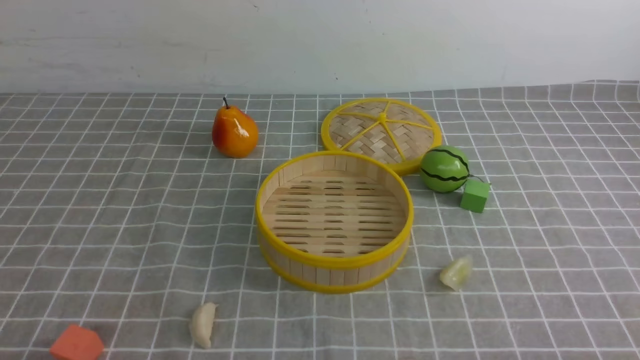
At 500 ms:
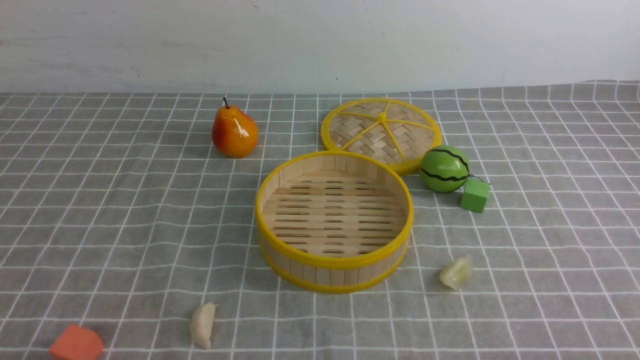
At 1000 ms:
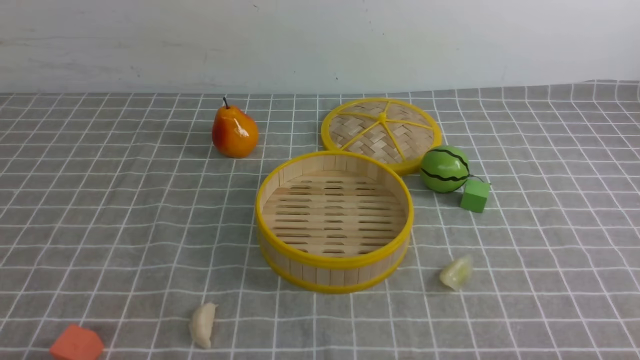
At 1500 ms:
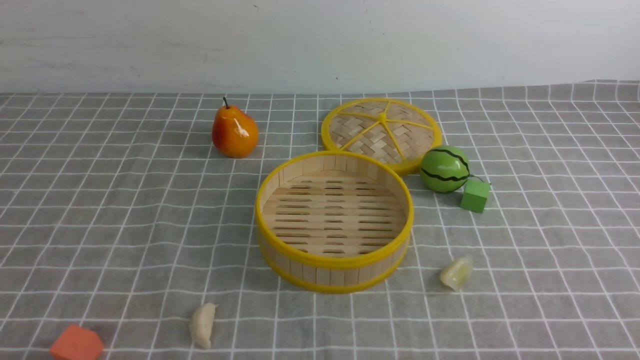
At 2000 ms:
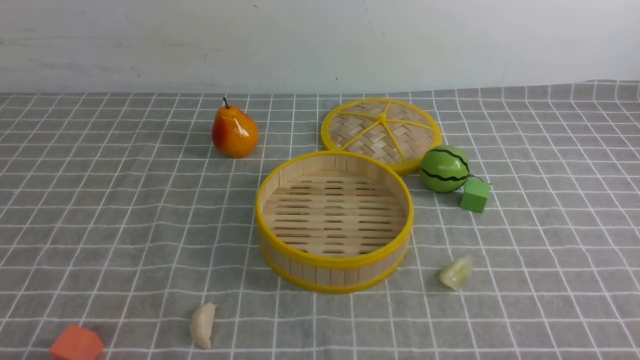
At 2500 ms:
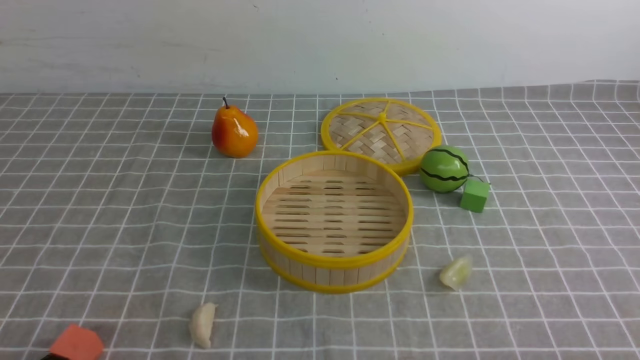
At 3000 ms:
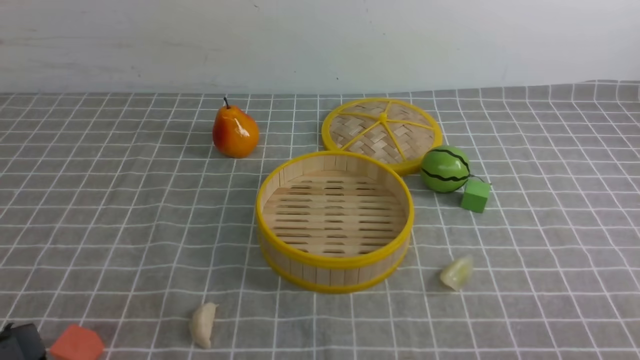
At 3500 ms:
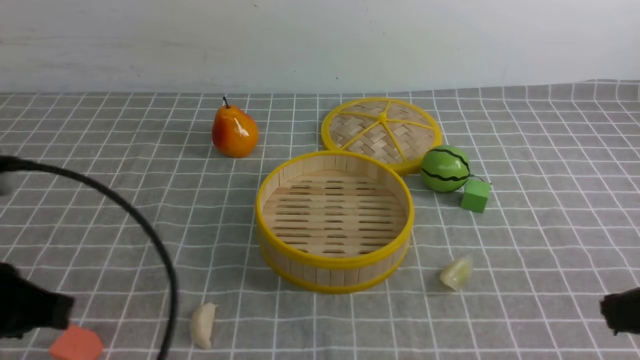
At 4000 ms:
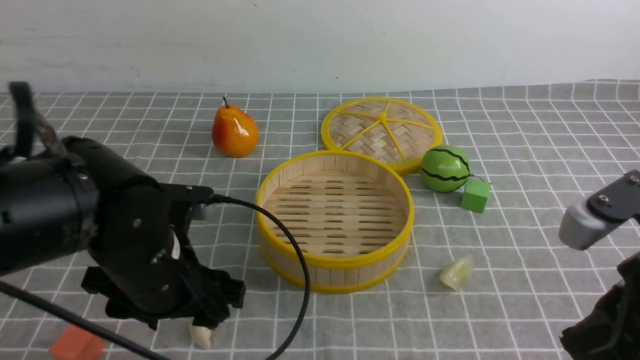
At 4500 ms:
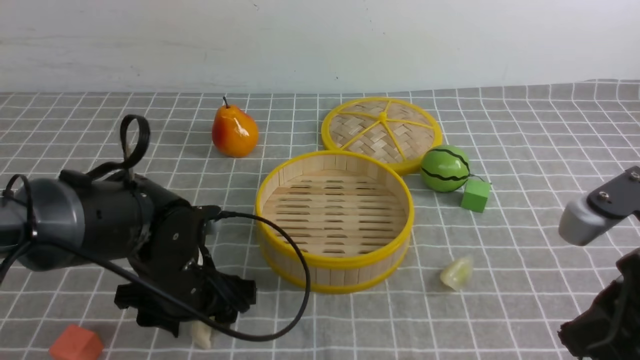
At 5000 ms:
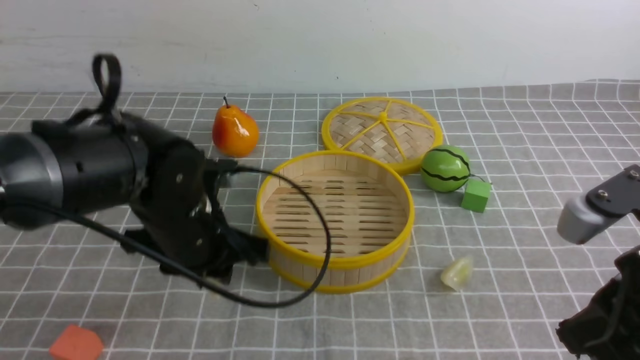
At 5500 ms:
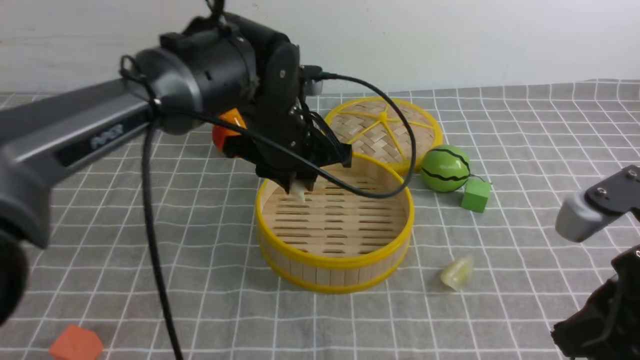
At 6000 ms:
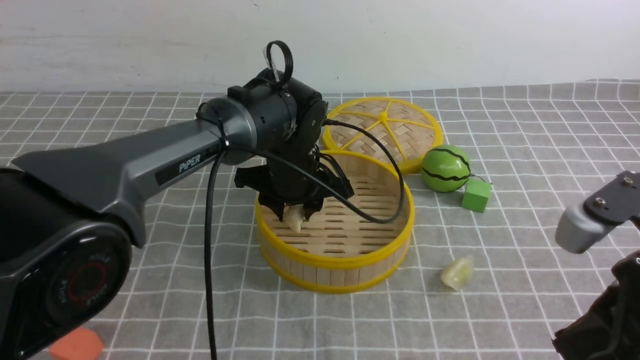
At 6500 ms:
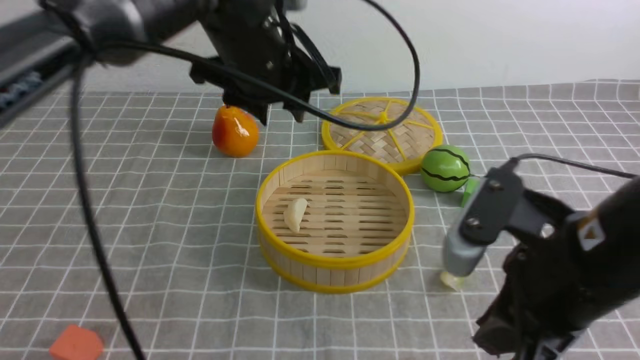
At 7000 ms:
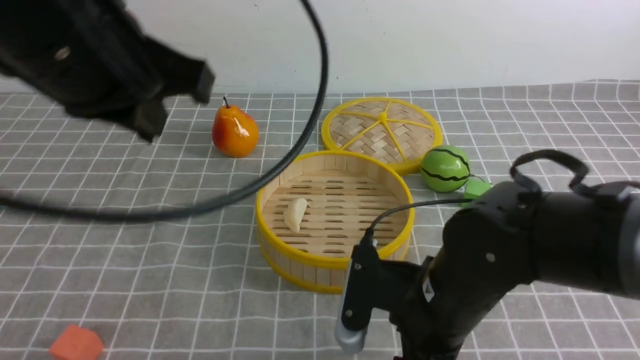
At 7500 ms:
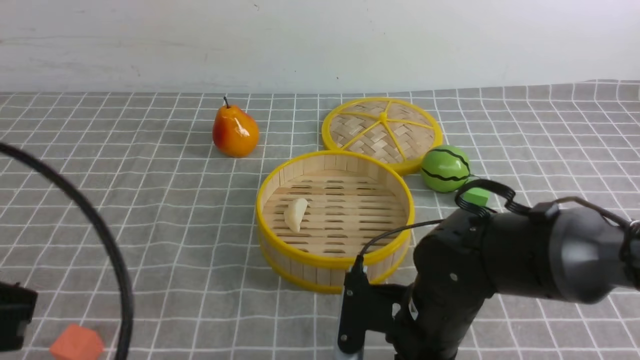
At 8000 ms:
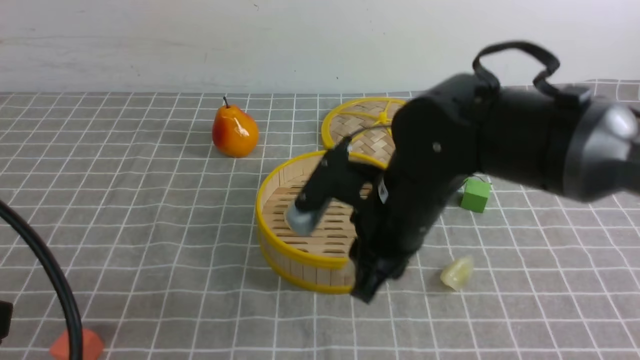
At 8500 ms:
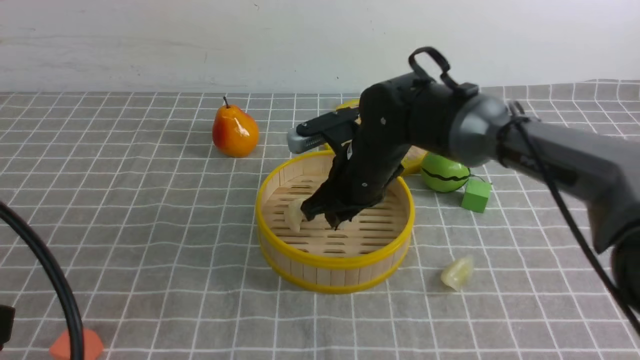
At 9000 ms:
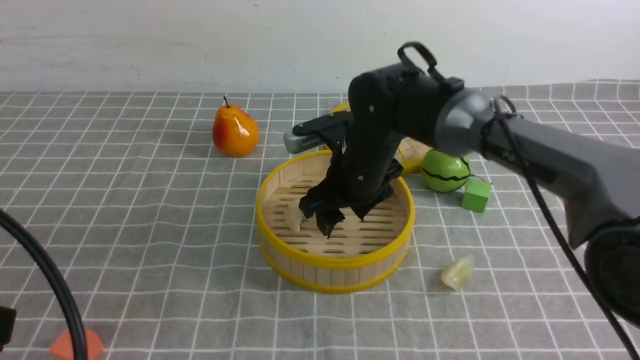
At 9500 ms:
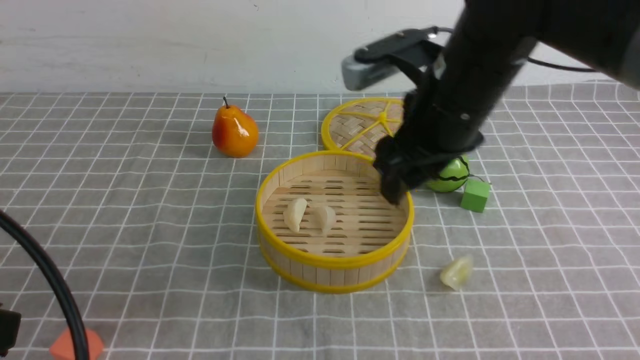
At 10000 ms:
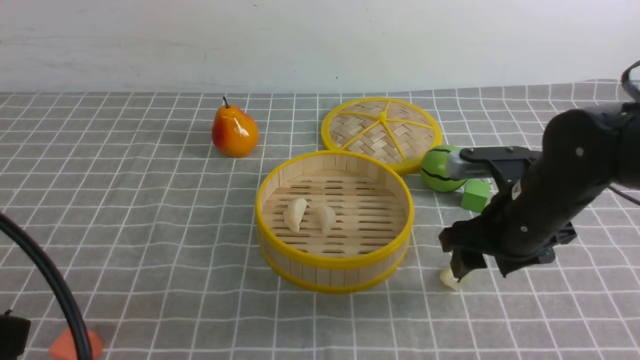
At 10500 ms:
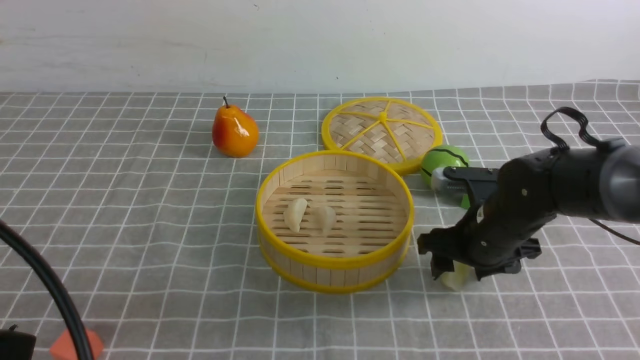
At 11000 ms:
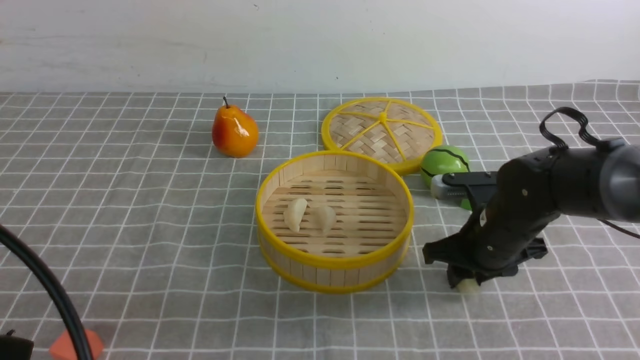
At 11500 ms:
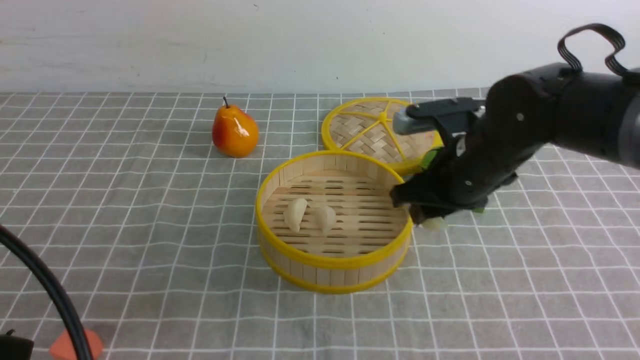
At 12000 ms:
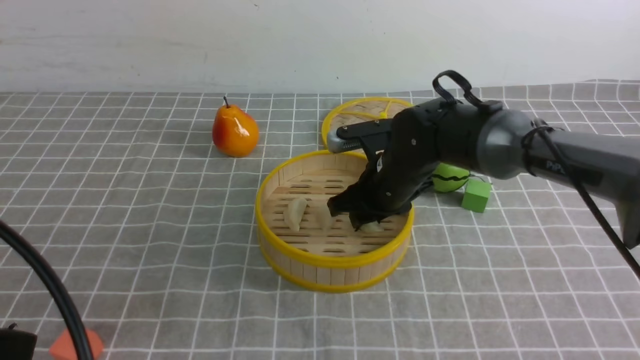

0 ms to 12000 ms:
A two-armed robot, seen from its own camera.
Task of the whole recording: put the dumplings into the steamer on the table with the grey tablecloth.
Step, 0 ms to 4500 ms: use the left arm to grab a dumpling.
Step, 5000 ms to 6000 ms: use the left arm to put the dumpling into the steamer.
Step, 6500 ms to 7500 ms: use the right arm to grab a dumpling.
Step, 8000 ms to 9000 ms: use the right arm to put the dumpling into the steamer.
Step, 9500 ms to 11000 ms: use the right arm to grab a dumpling.
2000 ms to 4000 ms: The left gripper moves forward, to the right and upward, roughly 25 cm, and opens its fingers; the right gripper moves upward, forward and to the left, approximately 20 cm, and closes up.
4000 ms to 6000 ms: The left gripper shifts about 20 cm forward and to the right.
6000 ms to 8000 ms: The right gripper is displaced to the left, forward and downward by roughly 20 cm, and opens and closes again; the left gripper goes some 40 cm backward, to the left and upward, and closes its fingers.
8000 ms to 10000 ms: The right gripper shifts some 10 cm to the right, and opens up.
10000 ms to 12000 ms: The right gripper is displaced forward and to the left by roughly 15 cm, and closes its fingers.

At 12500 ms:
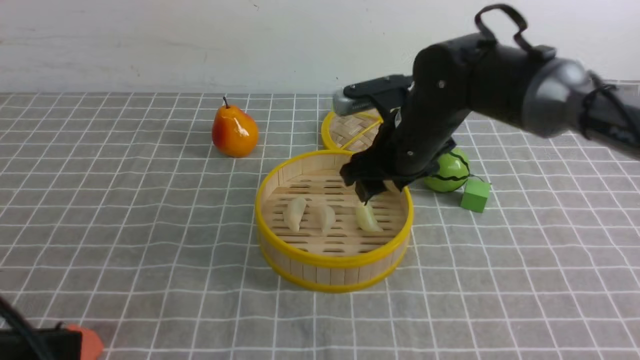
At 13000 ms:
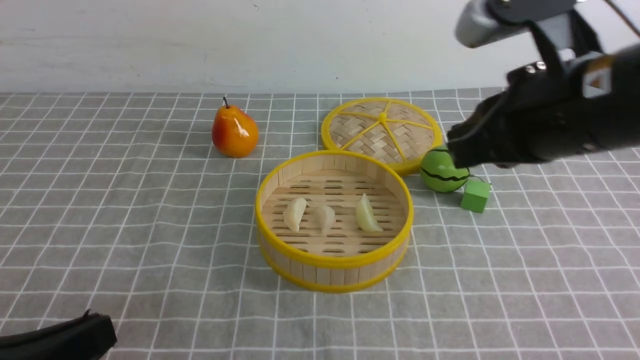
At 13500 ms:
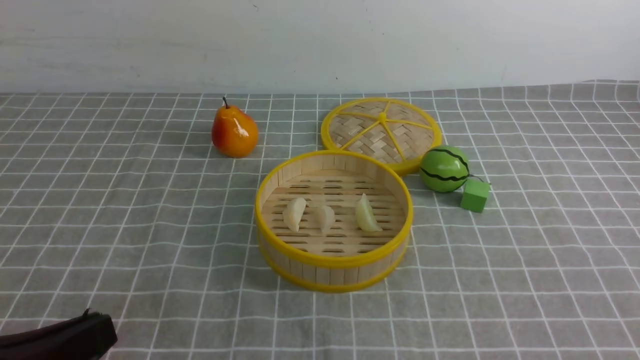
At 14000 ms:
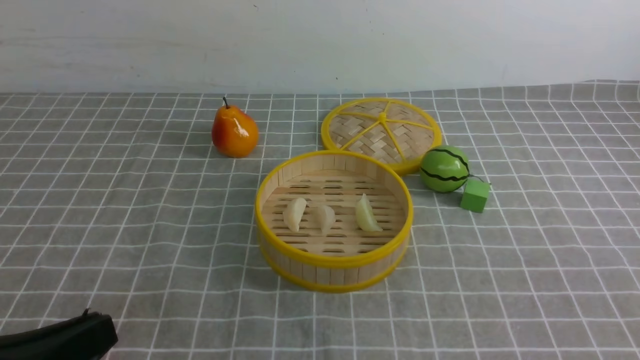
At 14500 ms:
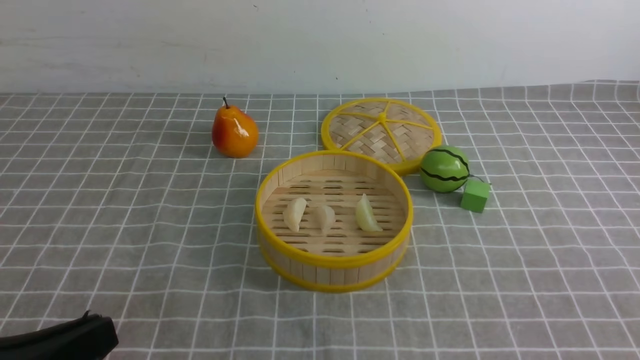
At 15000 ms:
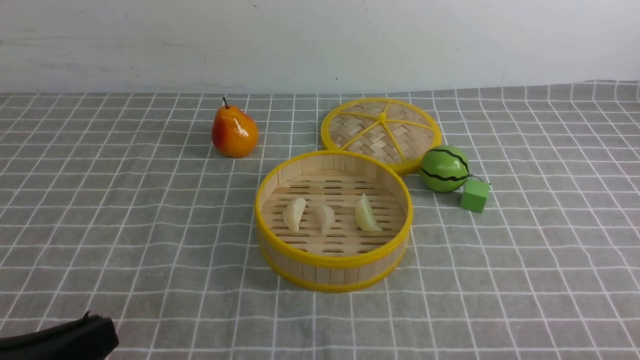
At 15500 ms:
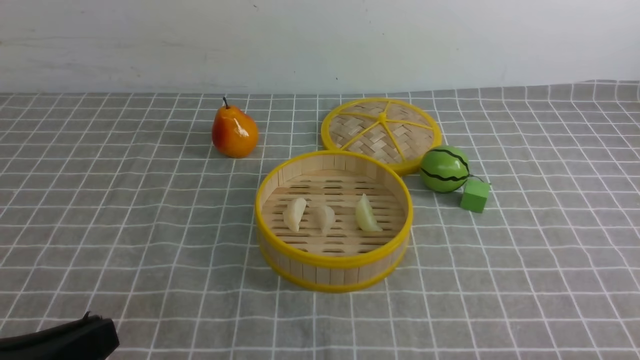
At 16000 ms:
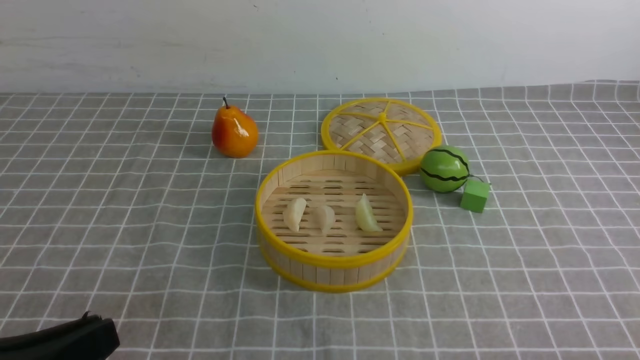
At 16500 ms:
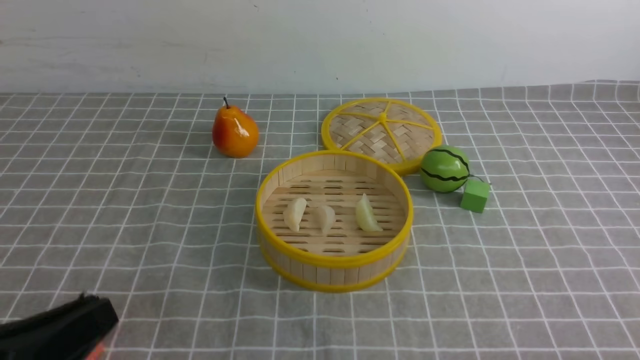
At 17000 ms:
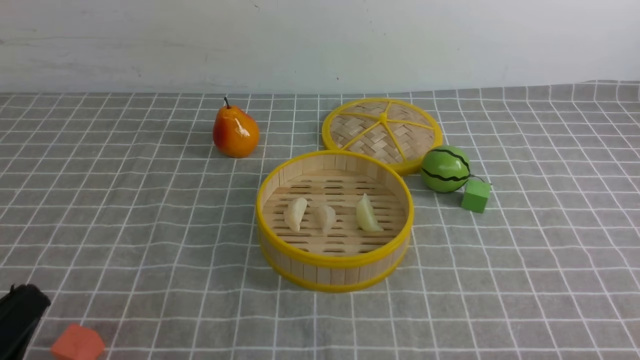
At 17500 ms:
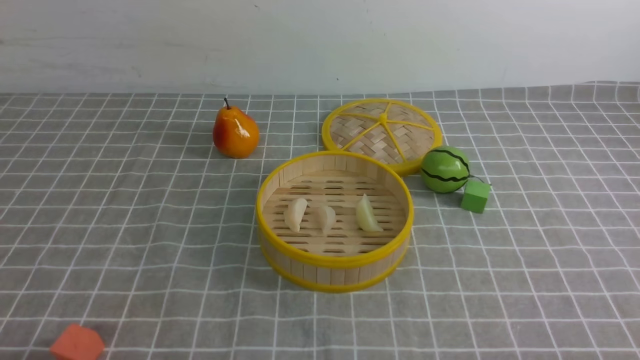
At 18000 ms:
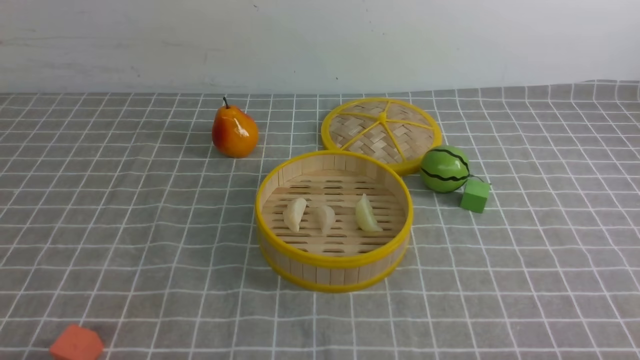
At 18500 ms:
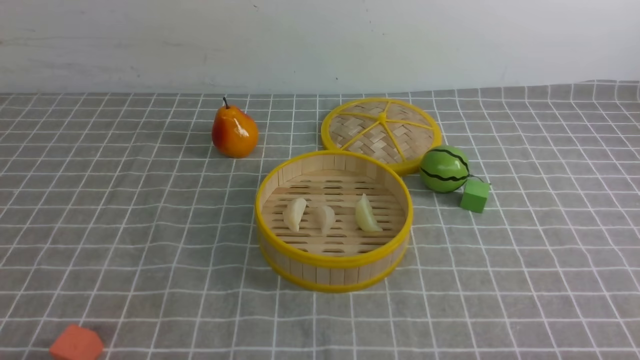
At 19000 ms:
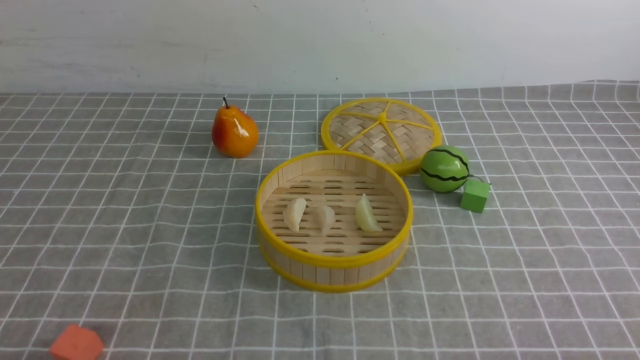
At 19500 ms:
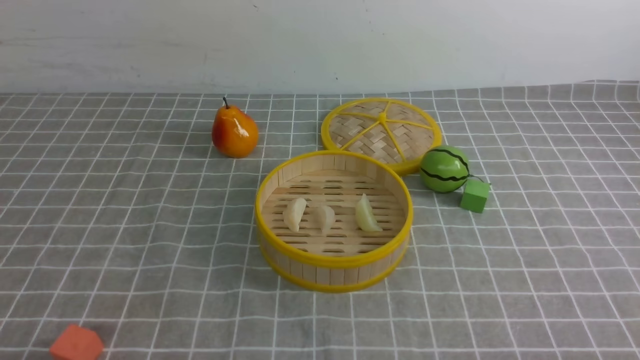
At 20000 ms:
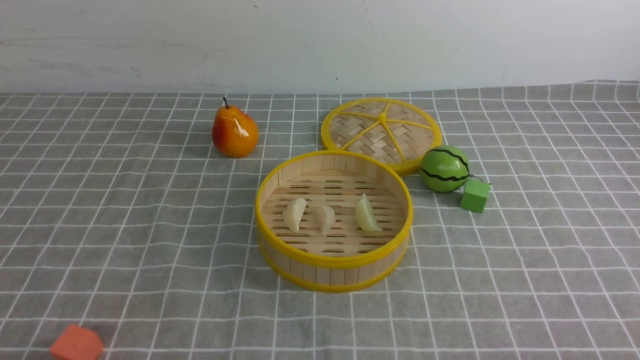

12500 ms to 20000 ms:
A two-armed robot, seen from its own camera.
Task of the whole recording: put the dumplings into the steamer on the table with the grey tablecloth.
12500 ms to 14500 ms: The left gripper goes about 5 cm downward, while the right gripper goes roughly 35 cm backward and to the right, and closes its fingers.
16500 ms to 18000 ms: The left gripper moves downward, some 10 cm.
18000 ms to 20000 ms: The two grippers keep their place.
